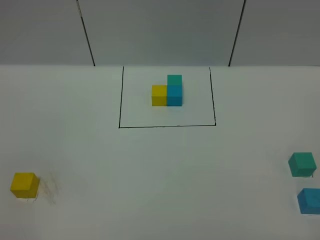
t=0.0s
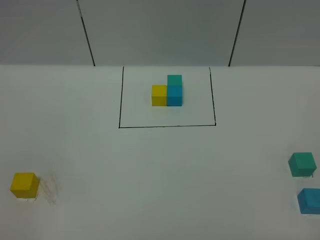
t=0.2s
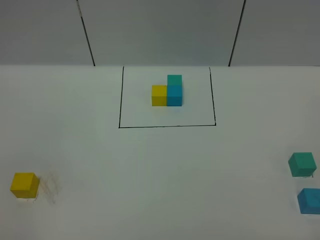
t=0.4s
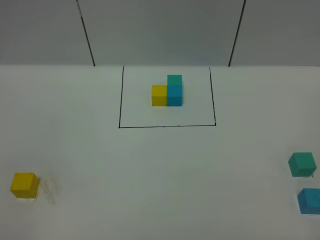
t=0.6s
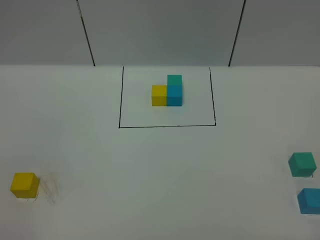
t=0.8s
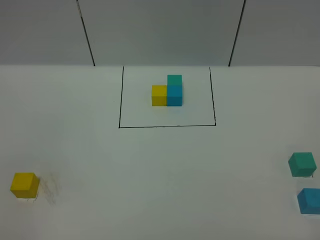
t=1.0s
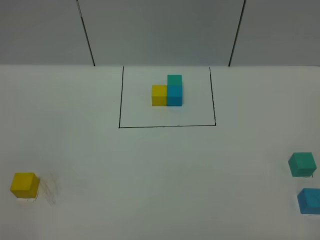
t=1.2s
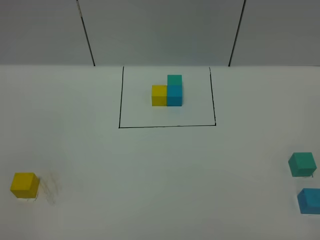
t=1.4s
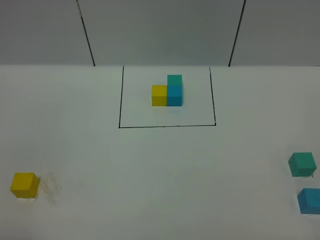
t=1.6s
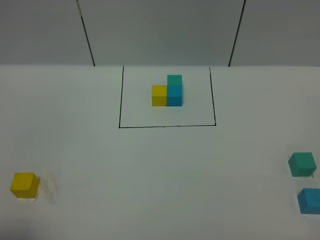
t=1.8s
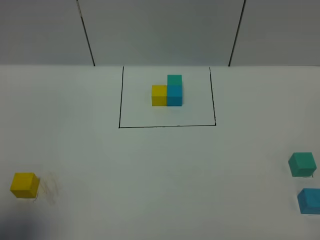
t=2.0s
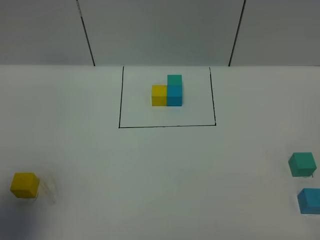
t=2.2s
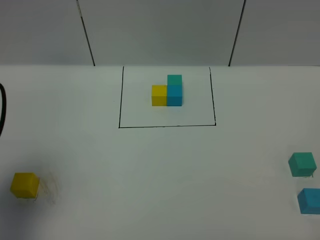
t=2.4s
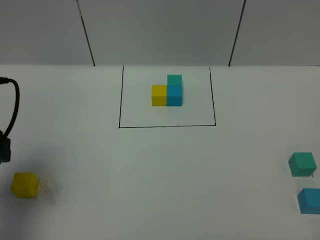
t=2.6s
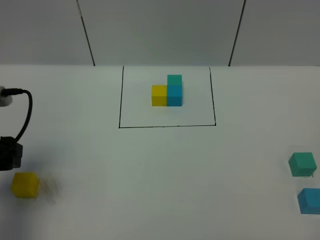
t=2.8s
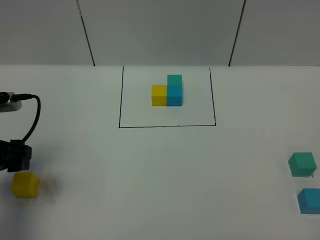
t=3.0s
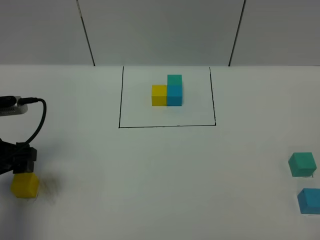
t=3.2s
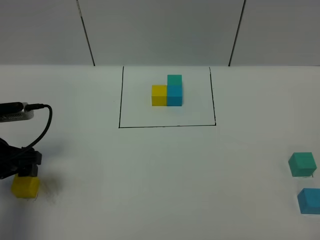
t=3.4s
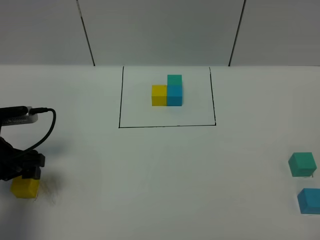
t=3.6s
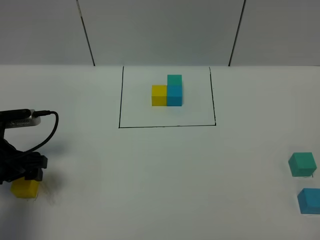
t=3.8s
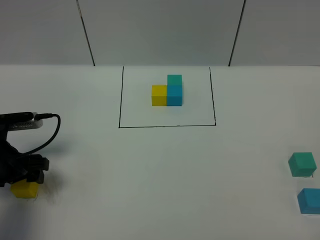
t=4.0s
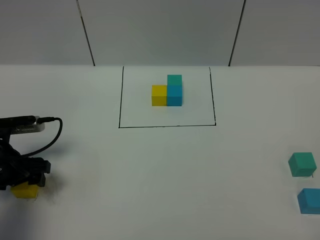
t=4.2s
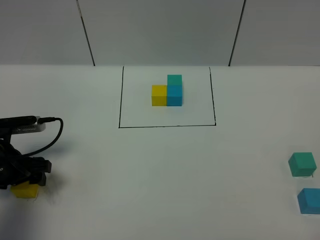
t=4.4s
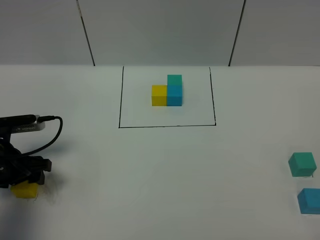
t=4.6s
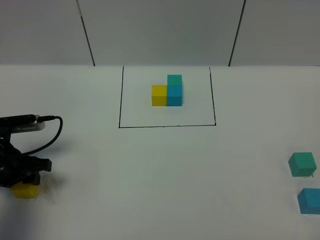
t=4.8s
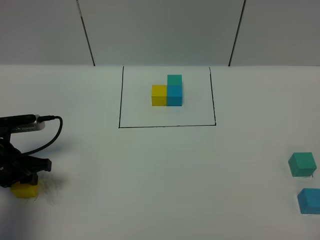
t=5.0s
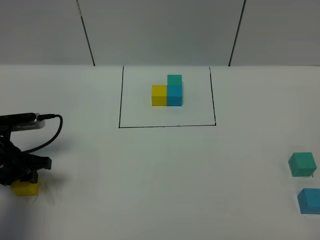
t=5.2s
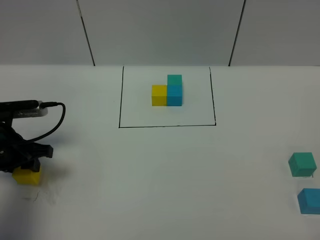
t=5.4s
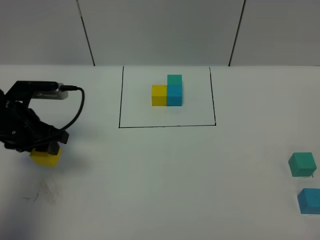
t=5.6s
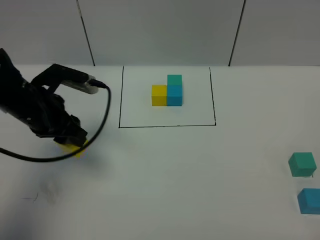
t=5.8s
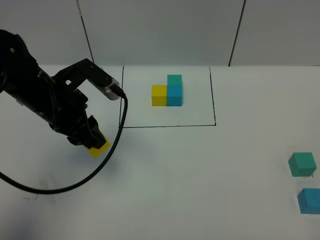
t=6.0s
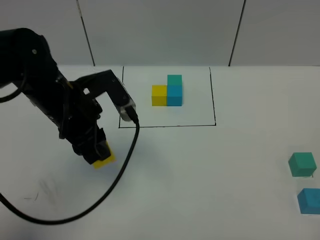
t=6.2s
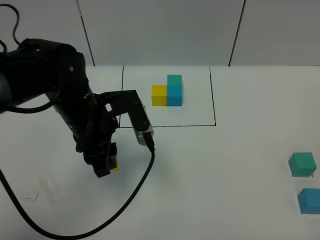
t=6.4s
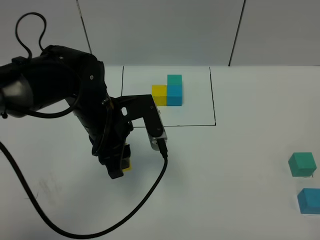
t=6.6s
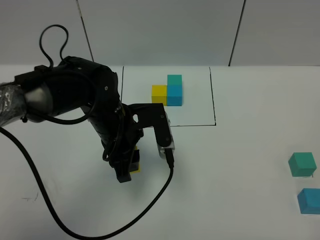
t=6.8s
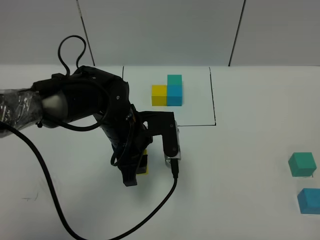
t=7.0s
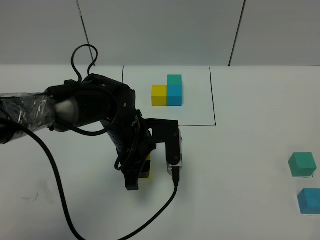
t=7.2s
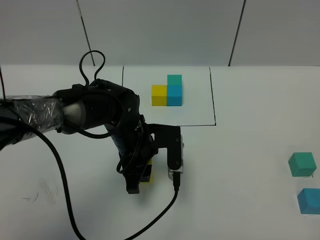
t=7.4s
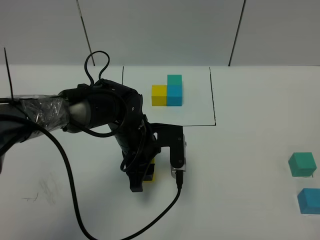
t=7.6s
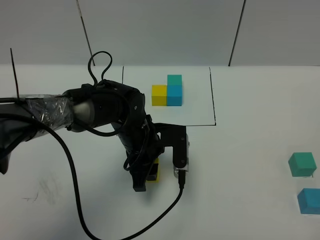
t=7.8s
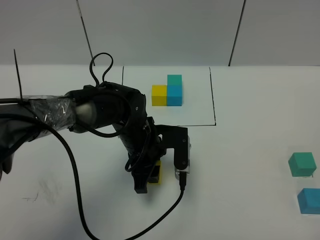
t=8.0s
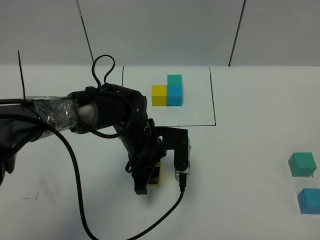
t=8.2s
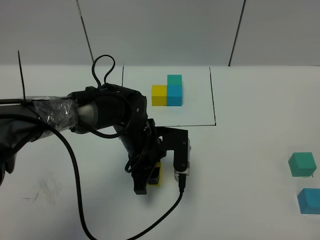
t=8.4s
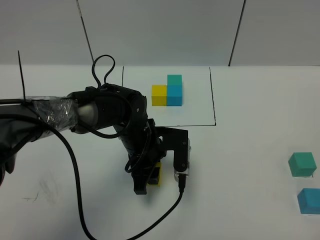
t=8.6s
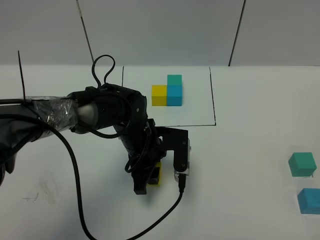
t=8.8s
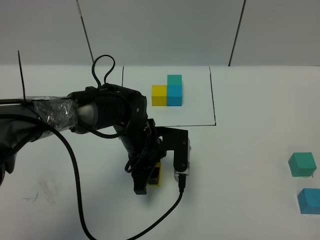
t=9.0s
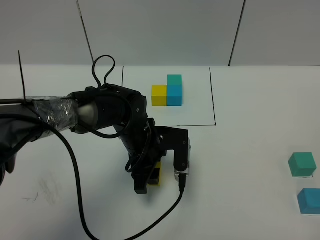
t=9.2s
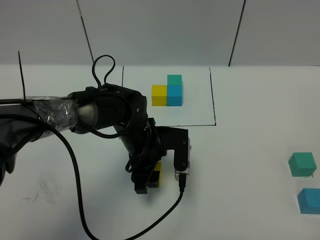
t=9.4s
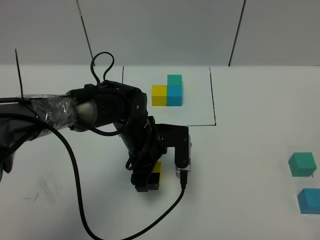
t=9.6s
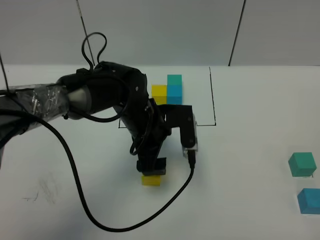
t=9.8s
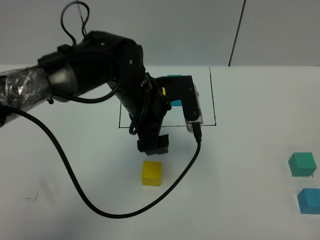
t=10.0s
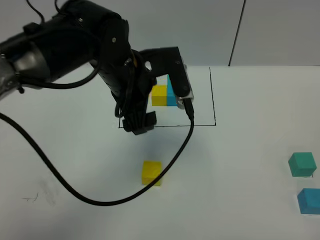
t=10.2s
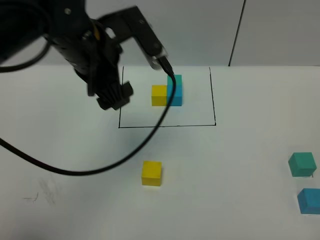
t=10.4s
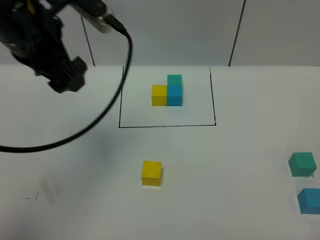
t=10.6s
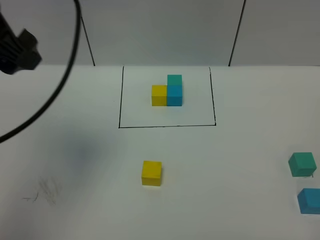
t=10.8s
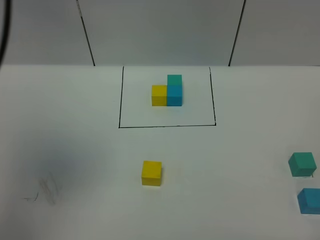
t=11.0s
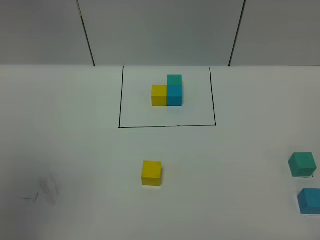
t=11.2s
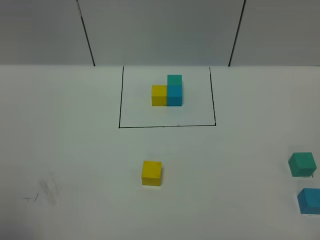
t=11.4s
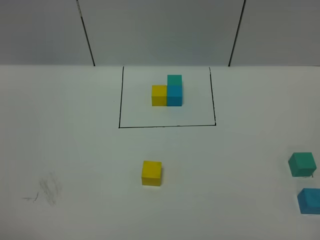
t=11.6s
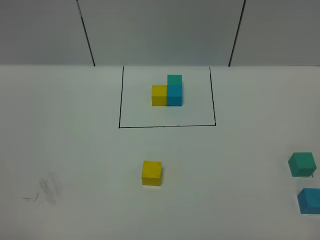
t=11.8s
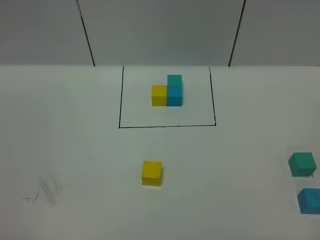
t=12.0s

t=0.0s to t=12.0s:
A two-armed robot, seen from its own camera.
Task of the whole recording: According to the building block template in front, assemble the scattered blocks together.
Step, t=2.4s to t=9.6s: Put the yellow cube in the center of the table.
t=1.6s to t=3.0s: The left gripper moves forward, about 20 cm.
t=3.0s to t=4.4s: The left gripper shifts roughly 10 cm downward.
t=4.4s to t=6.0s: The left gripper shifts roughly 15 cm to the right and upward, and closes its fingers.
t=6.0s to t=7.6s: The left gripper travels to the right and downward by roughly 15 cm.
t=7.6s to t=9.0s: Neither gripper changes place.
t=9.0s to t=10.4s: The left gripper heads upward, covering about 20 cm, and opens its fingers.
t=10.4s to t=12.0s: The left gripper goes approximately 40 cm backward and to the left.

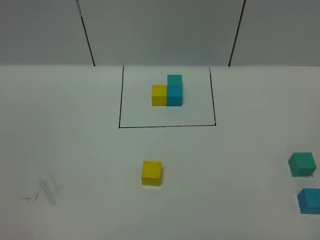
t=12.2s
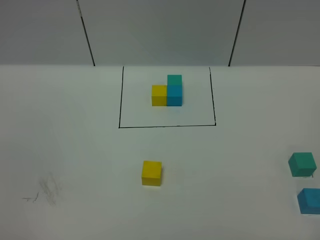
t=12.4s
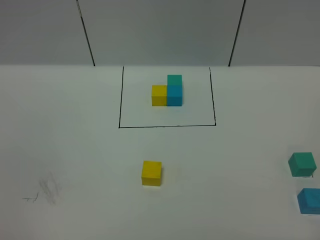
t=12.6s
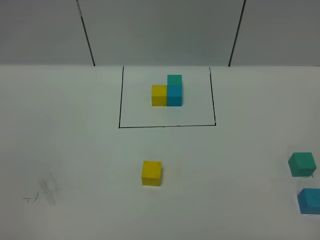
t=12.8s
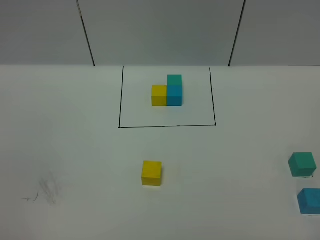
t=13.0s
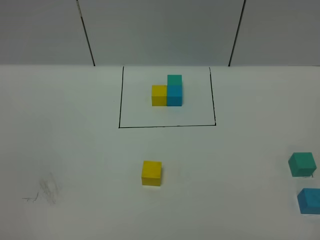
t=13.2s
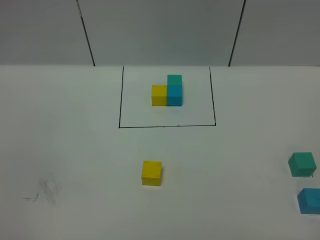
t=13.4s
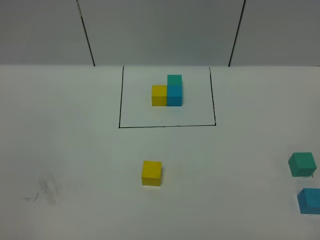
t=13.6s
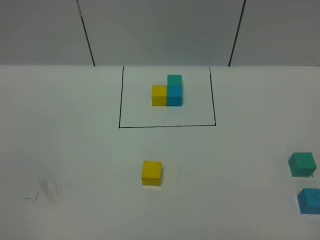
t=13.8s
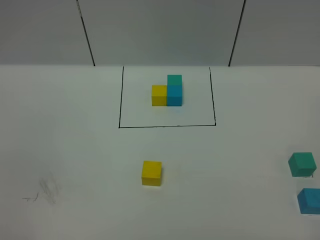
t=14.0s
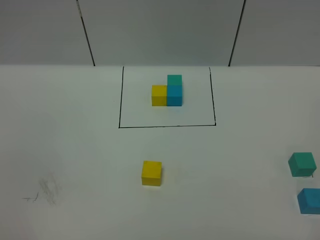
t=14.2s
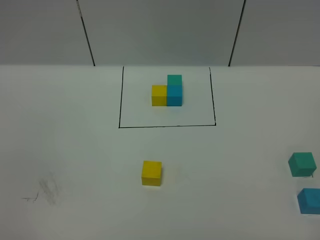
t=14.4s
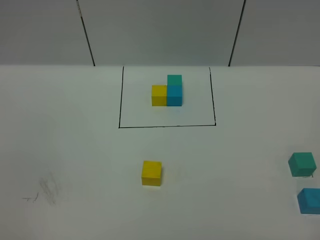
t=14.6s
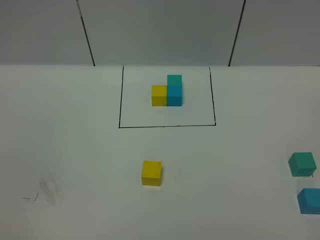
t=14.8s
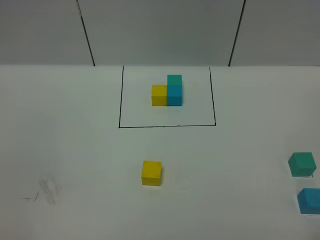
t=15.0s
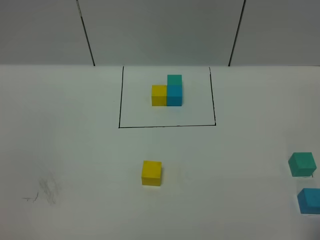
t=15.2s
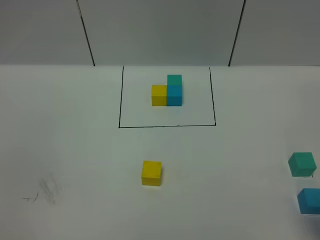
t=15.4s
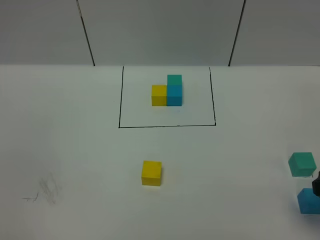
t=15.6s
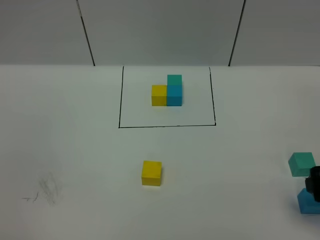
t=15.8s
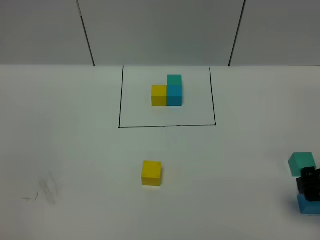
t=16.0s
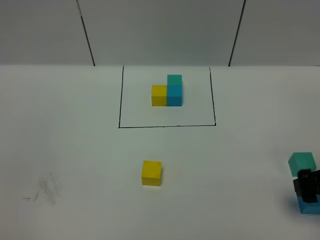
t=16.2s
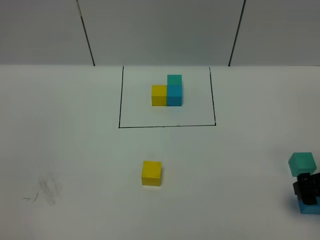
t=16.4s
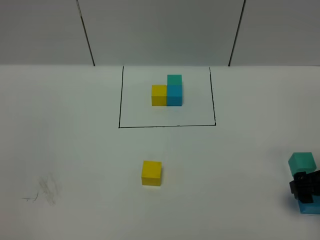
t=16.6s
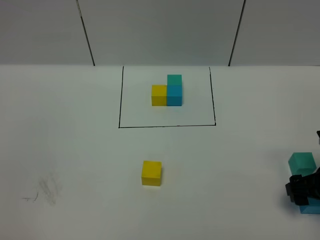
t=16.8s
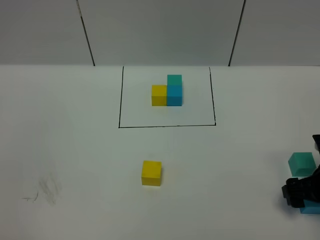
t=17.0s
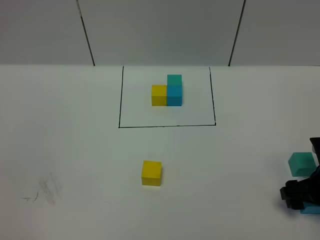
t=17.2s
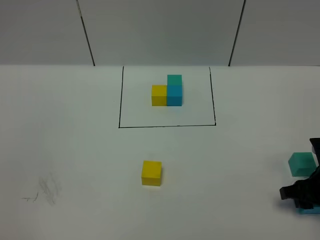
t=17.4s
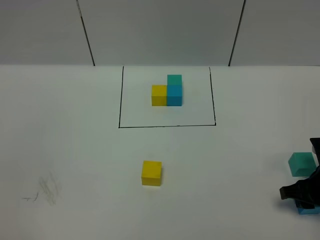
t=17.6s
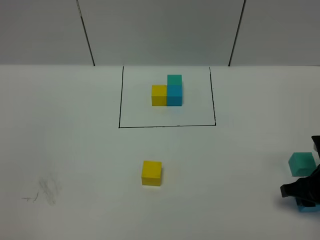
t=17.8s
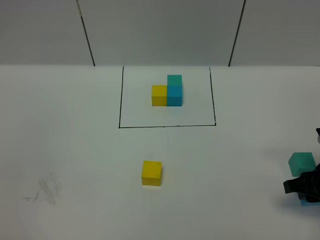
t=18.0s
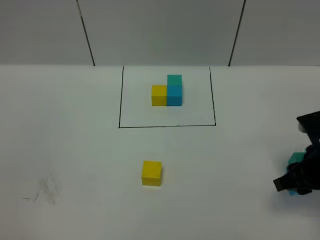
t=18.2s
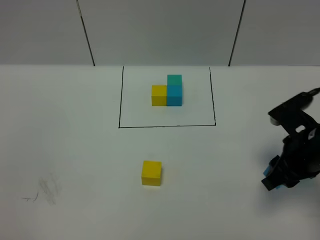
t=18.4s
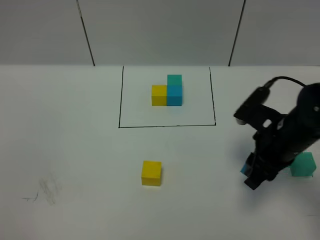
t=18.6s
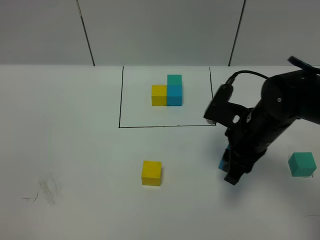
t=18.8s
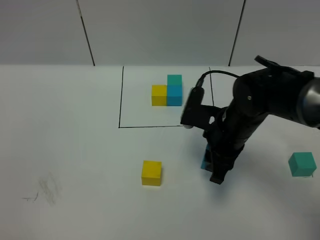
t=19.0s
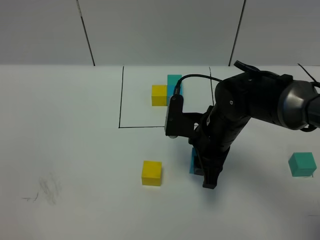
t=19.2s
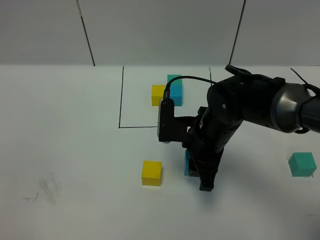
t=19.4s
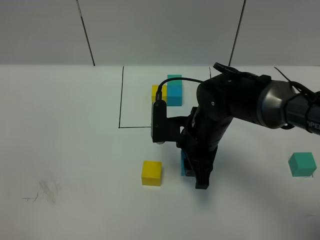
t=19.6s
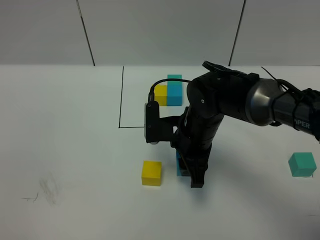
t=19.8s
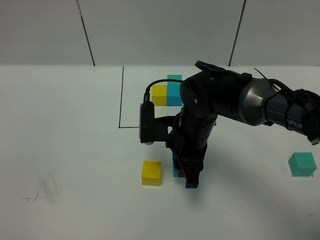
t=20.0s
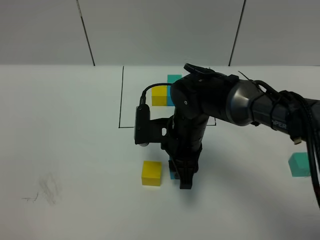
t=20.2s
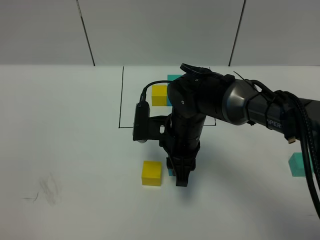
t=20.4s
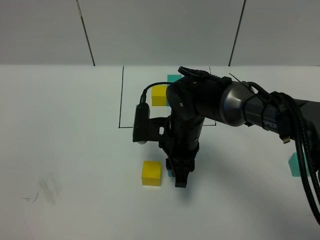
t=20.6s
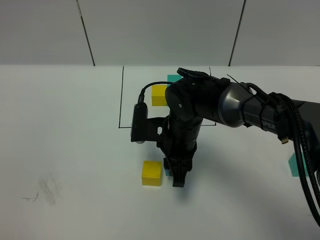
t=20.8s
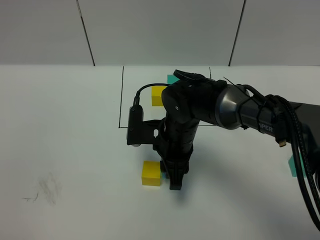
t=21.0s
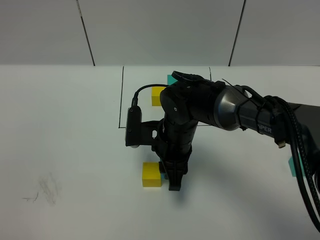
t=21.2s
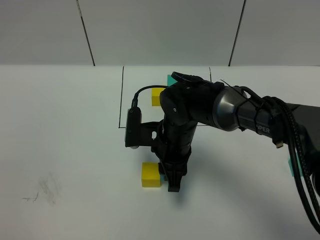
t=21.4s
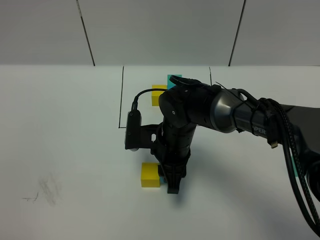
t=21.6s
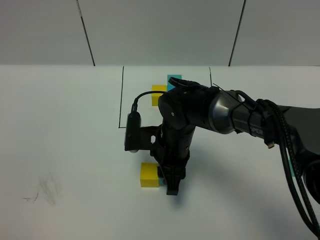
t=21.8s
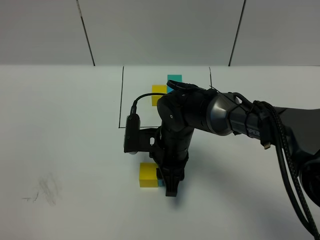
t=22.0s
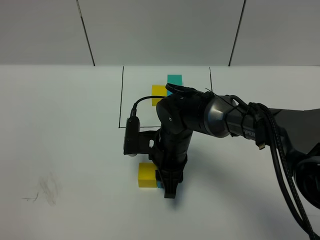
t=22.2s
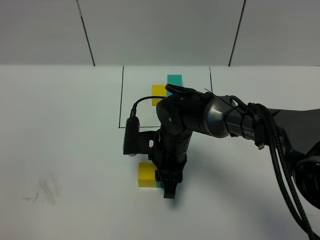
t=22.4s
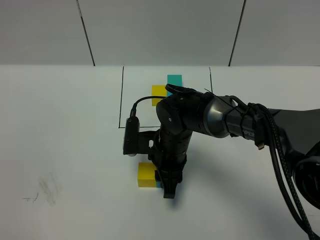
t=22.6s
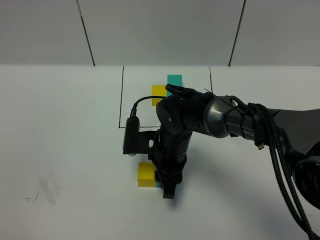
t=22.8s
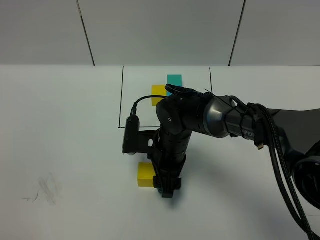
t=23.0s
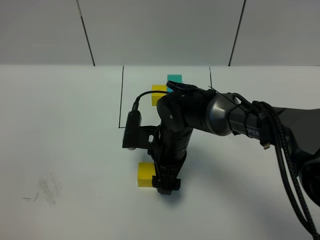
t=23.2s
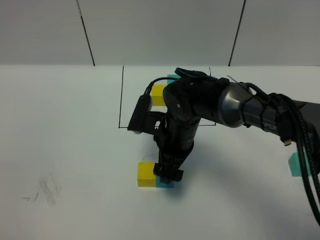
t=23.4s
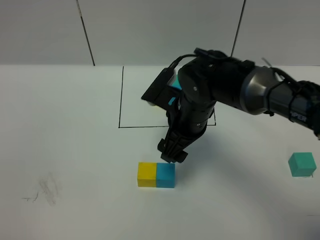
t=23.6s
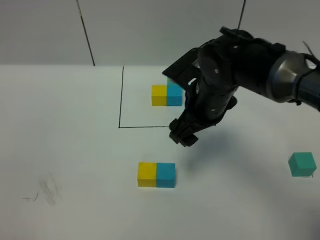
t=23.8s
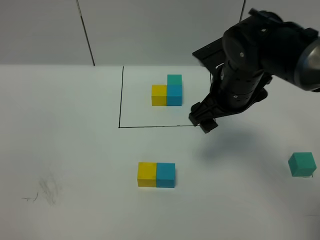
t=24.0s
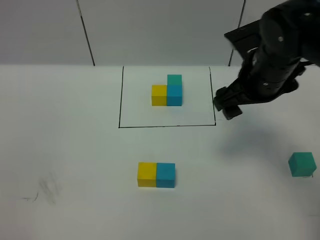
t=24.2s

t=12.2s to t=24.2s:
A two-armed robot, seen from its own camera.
Task of the whole recording: According to the building block template in front, assemble the scattered blocks together.
Step, t=12.2s to t=23.2s: Put the blue cube on the right of the yellow cube.
t=15.2s to t=16.6s: The right gripper moves forward and downward, about 15 cm.
t=16.6s to t=18.2s: The right gripper closes up.
t=18.2s to t=19.8s: The right gripper is displaced to the left by some 20 cm.
t=19.8s to t=21.2s: The grippers stay close to where they were, moving slightly.
t=21.2s to t=22.6s: There are only small adjustments of the grippers.
t=22.6s to t=24.2s: The right gripper shifts roughly 20 cm upward and to the right, and opens its fingers.
